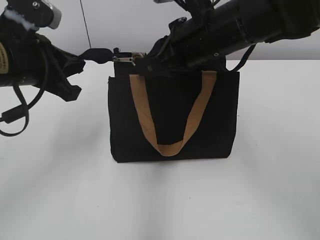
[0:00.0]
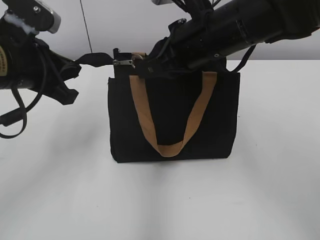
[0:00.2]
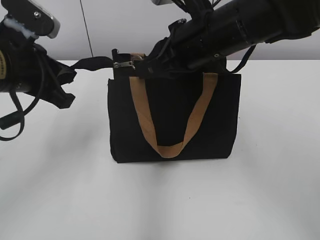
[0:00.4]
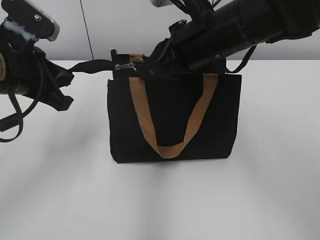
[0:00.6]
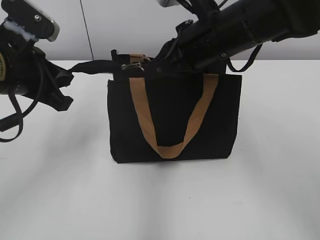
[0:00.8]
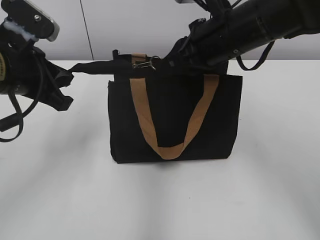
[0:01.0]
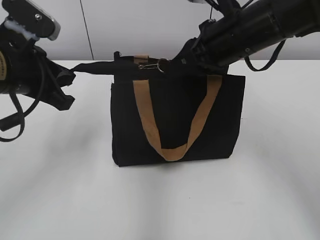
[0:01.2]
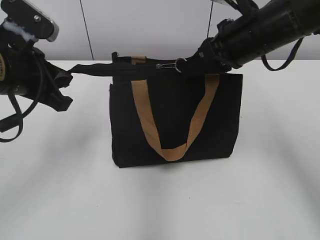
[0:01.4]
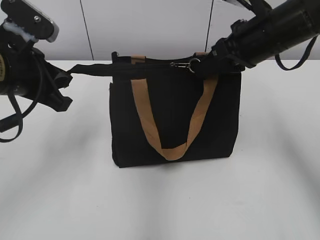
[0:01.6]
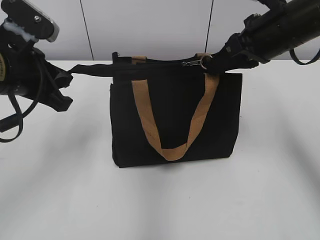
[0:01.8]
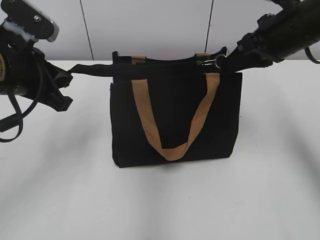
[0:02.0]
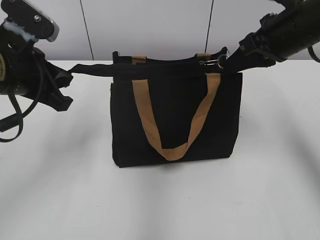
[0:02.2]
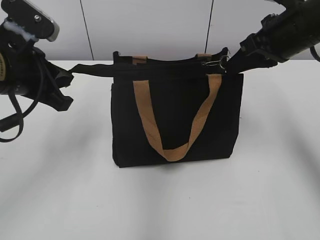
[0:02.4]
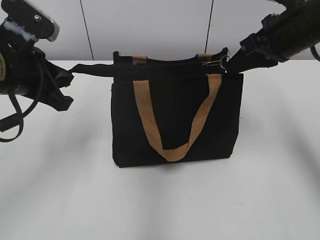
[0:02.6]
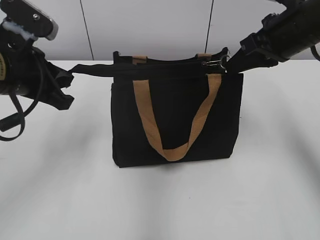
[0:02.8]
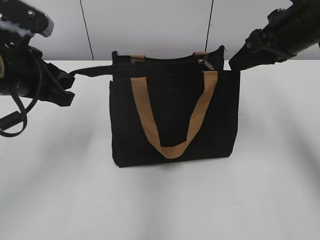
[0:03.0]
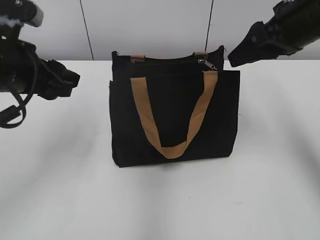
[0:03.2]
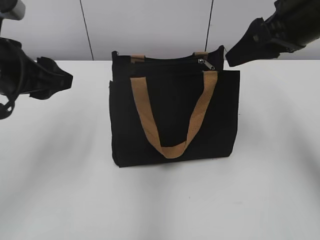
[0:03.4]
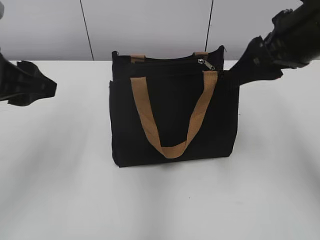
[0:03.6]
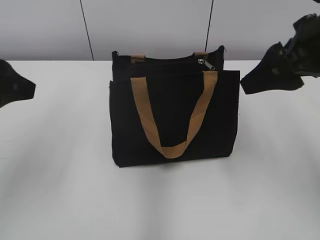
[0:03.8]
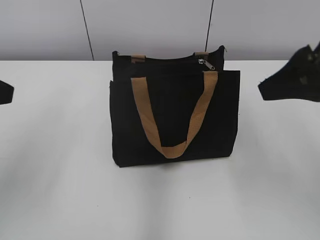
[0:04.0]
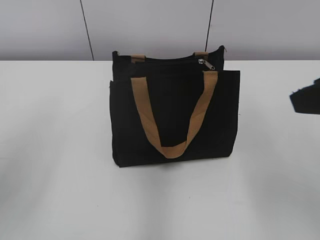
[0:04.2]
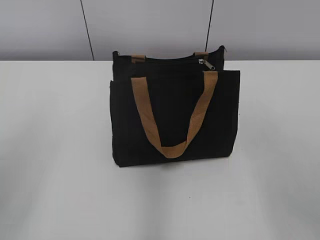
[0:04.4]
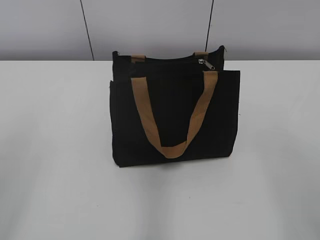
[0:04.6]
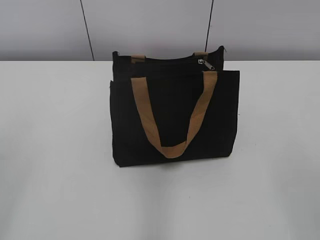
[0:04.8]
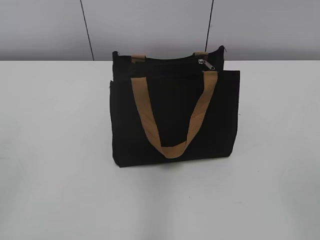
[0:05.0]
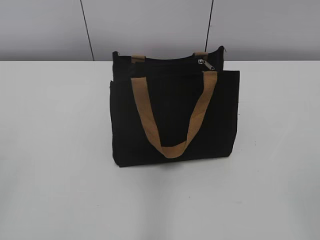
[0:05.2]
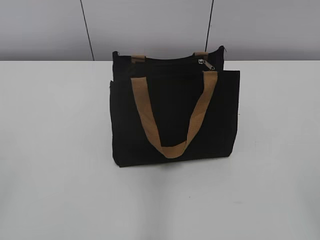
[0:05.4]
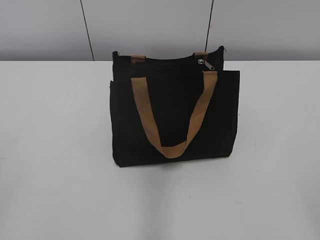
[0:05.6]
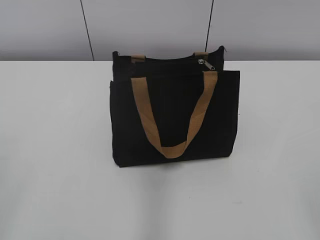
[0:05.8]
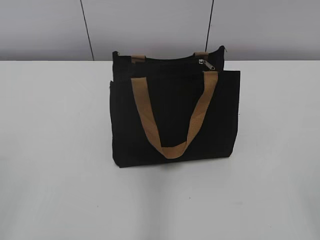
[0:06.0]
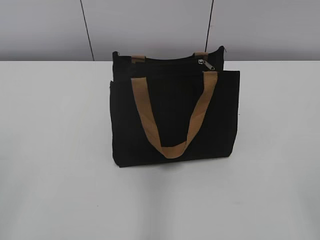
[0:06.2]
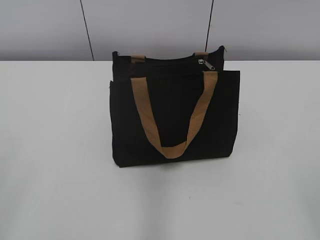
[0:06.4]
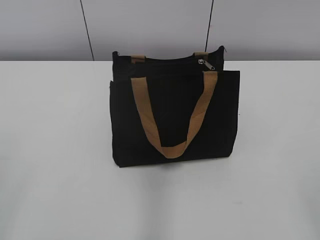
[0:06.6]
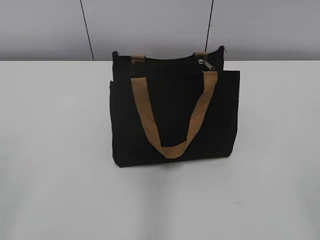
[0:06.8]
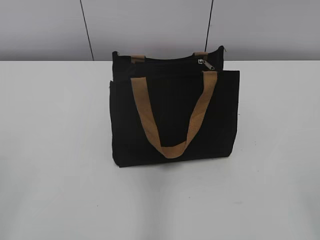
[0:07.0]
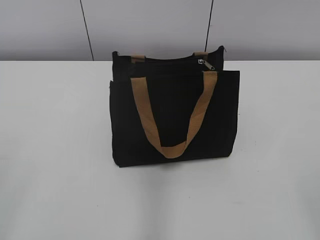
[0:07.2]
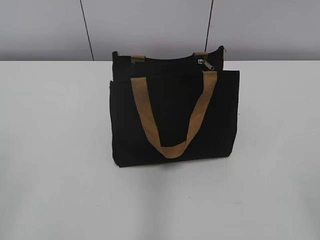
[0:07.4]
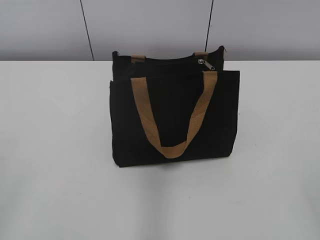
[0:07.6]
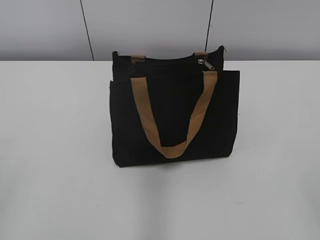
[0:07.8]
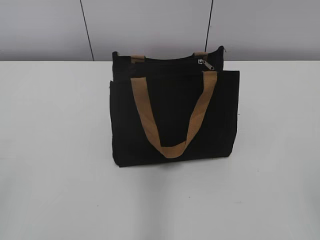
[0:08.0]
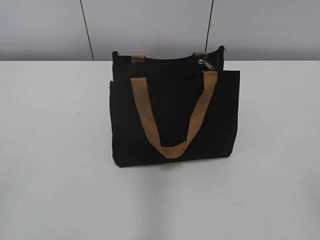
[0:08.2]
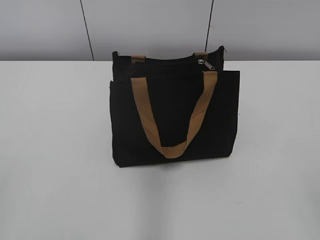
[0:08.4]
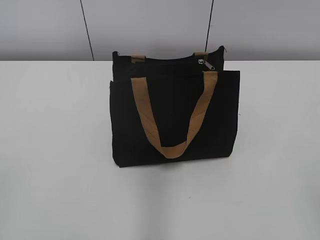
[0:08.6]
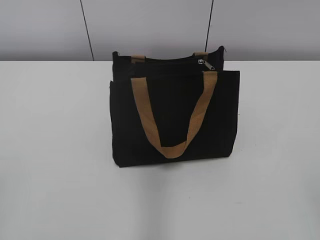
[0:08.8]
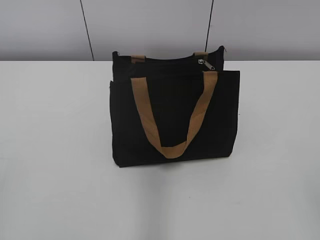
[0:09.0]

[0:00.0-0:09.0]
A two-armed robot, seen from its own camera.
Step, 0:00.0 to 0:02.8: Zip up the bag with your right hand.
Step, 0:03.0 to 0:03.2: Grab the zipper with your left hand.
0:00.0 to 0:01.6: The right gripper moves to the right, some 10 cm.
0:01.6 to 0:03.0: The right gripper opens.
0:03.0 to 0:04.4: The right gripper heads backward, covering some 20 cm, and opens up; the left gripper goes roughly 15 cm backward, upward and to the left, and opens its fingers.

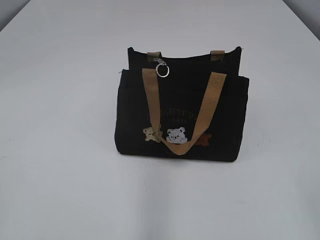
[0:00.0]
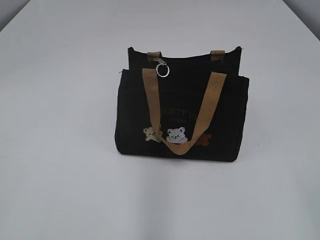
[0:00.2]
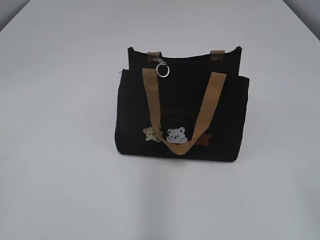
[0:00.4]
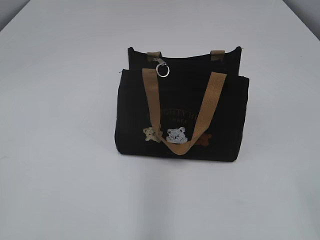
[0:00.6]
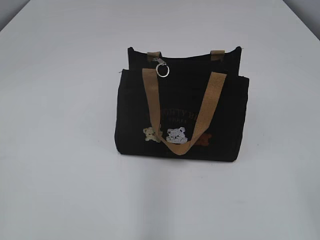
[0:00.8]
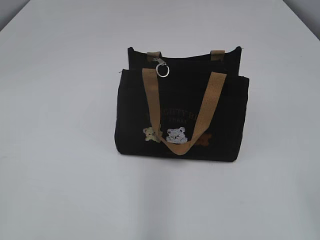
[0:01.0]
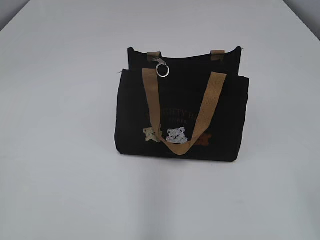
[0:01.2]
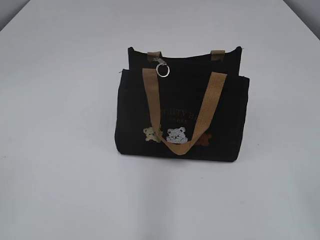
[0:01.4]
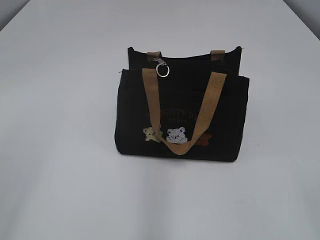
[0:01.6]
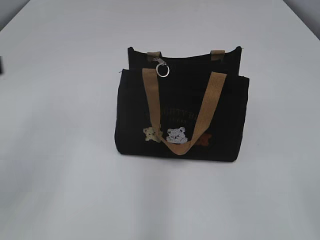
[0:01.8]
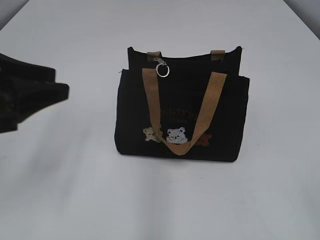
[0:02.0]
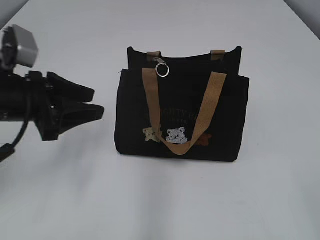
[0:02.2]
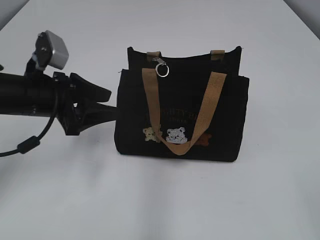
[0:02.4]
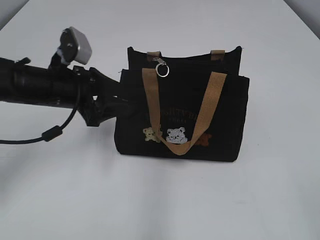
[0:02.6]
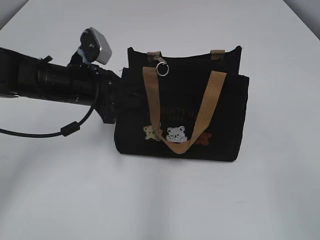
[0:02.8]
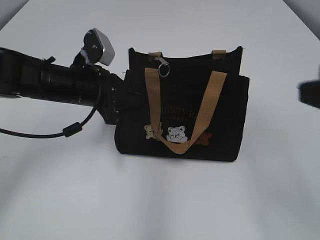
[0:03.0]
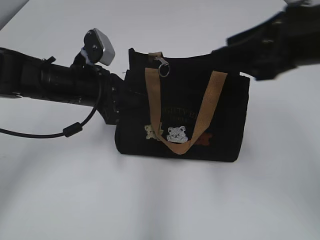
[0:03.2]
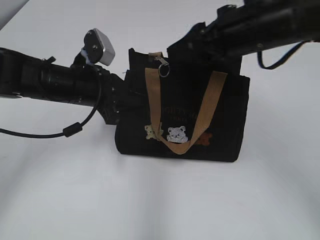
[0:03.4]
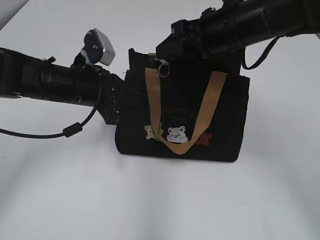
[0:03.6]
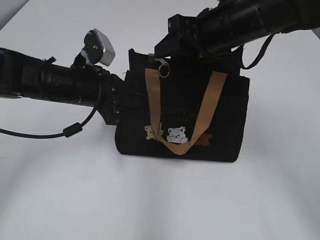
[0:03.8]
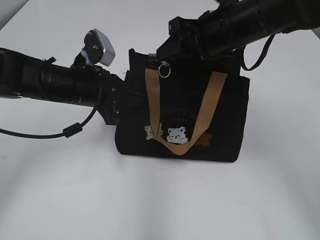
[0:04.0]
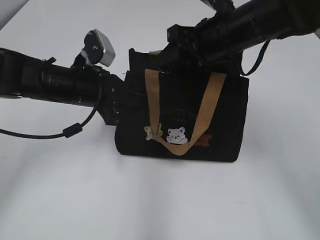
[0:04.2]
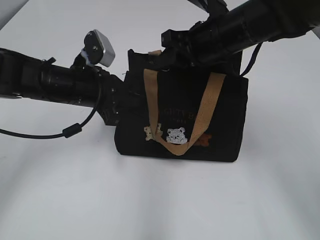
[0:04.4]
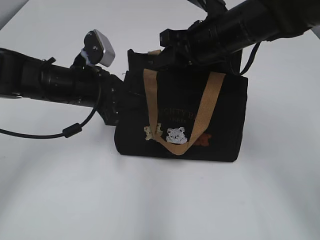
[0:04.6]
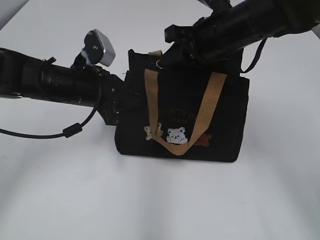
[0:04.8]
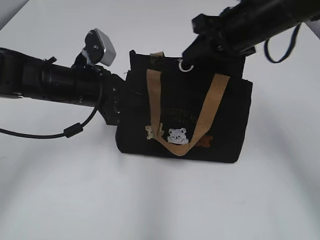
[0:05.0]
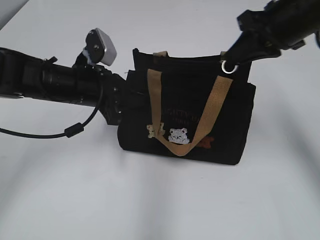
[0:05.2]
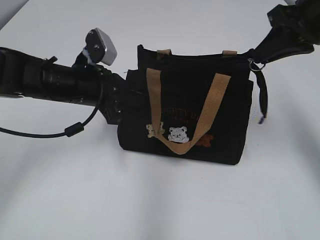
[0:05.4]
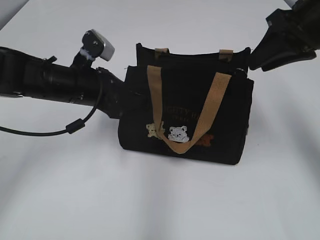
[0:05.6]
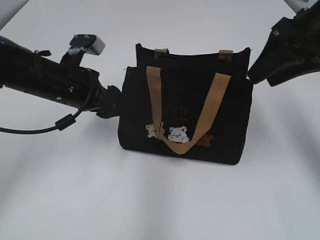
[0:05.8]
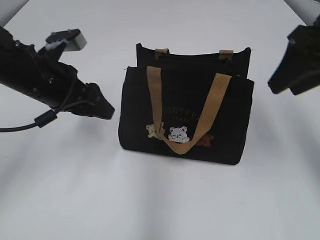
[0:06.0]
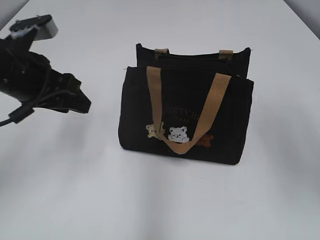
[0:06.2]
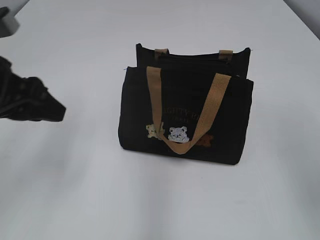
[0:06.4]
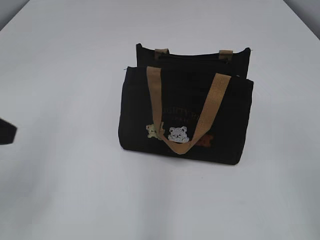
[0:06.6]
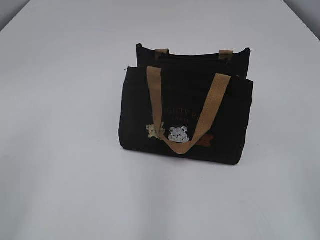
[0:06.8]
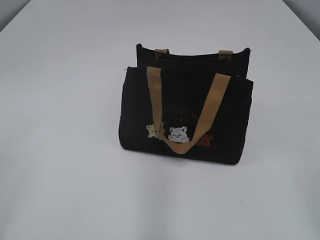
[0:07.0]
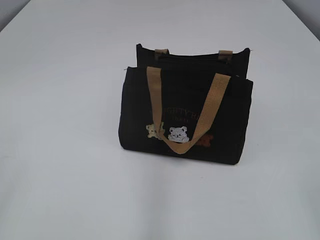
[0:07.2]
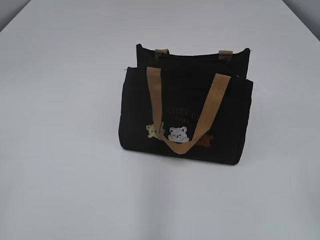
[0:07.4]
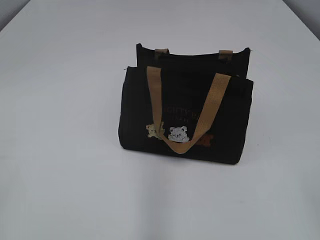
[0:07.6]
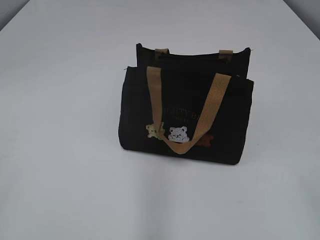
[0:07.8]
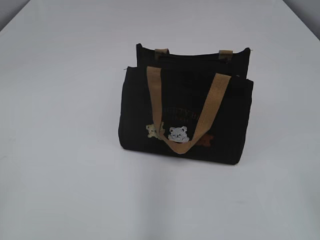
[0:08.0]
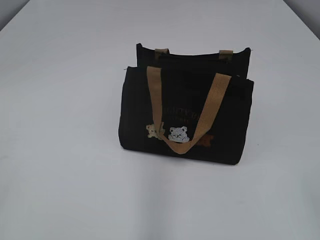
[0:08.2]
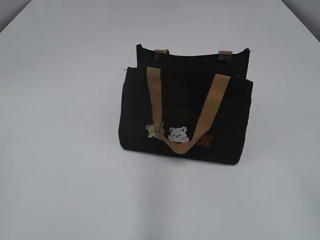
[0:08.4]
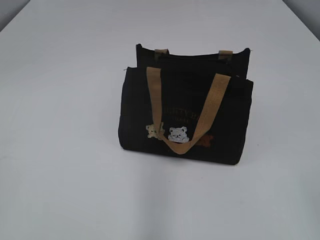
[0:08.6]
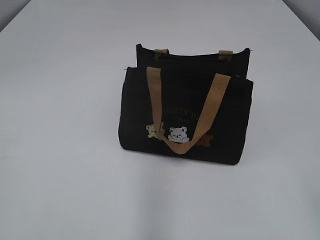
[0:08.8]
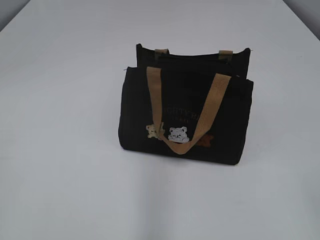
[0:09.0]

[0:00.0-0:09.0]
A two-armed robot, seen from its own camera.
Step, 0:00.0 to 0:05.4: Pull open the zipper with your right hand.
Step, 0:05.6 to 0:05.8: Hold the bag with your left hand.
0:01.6 to 0:03.0: The right gripper is displaced forward by approximately 15 cm, while the left gripper is displaced forward, downward and to the right by roughly 35 cm, and closes its fingers.
0:03.0 to 0:04.4: The right gripper heads forward and to the left, covering about 30 cm.
0:04.4 to 0:06.0: The left gripper ends up approximately 5 cm from where it was, and opens. Meanwhile the right gripper moves to the right, backward and upward, some 15 cm, and opens up.
0:06.0 to 0:07.6: The left gripper shifts roughly 35 cm backward and to the left; the right gripper moves backward, about 30 cm.
